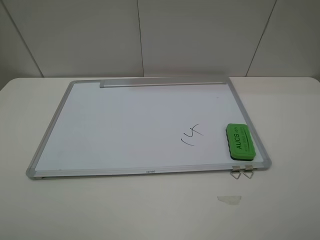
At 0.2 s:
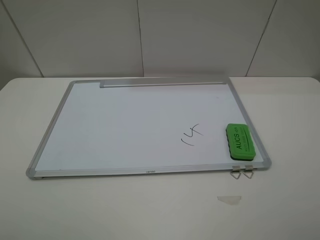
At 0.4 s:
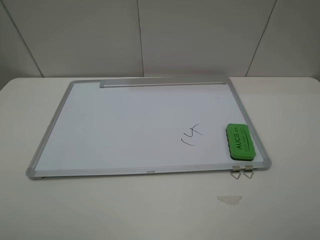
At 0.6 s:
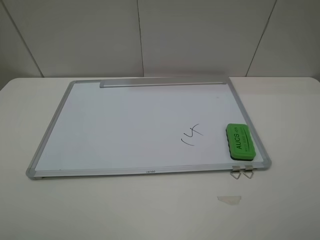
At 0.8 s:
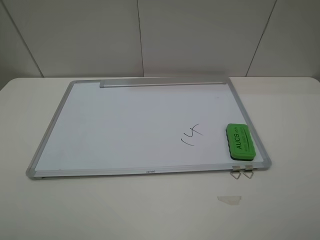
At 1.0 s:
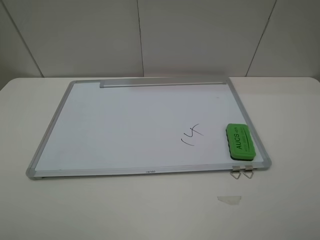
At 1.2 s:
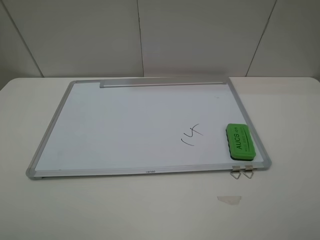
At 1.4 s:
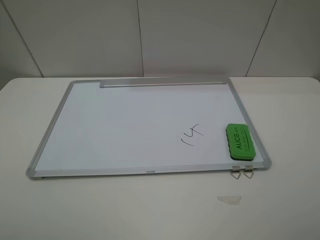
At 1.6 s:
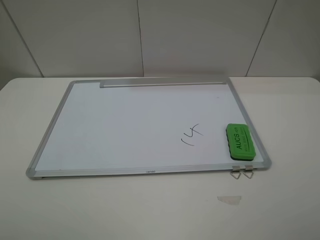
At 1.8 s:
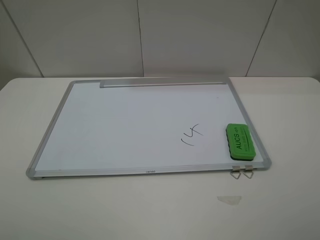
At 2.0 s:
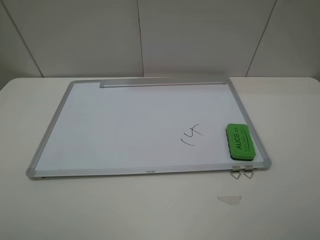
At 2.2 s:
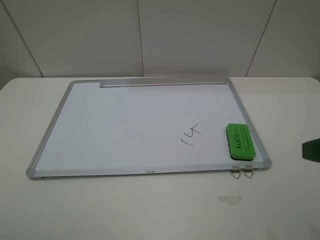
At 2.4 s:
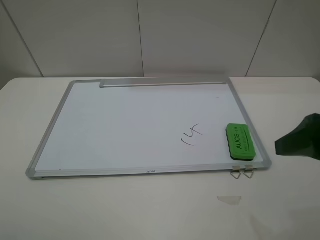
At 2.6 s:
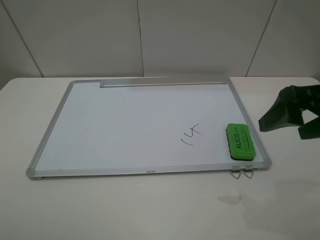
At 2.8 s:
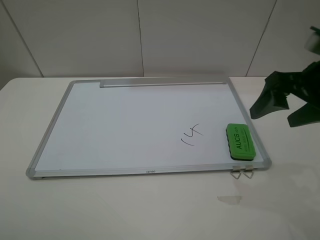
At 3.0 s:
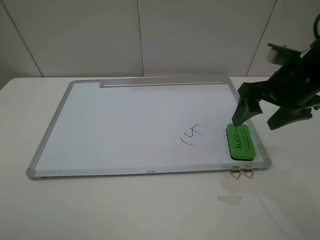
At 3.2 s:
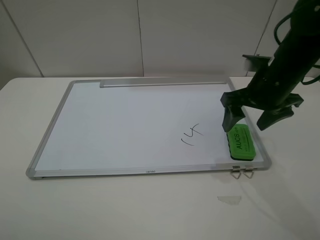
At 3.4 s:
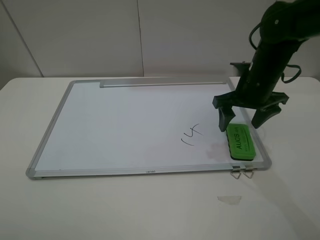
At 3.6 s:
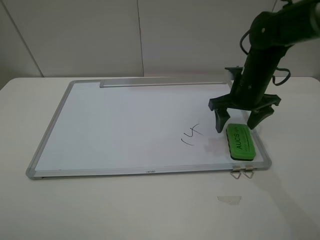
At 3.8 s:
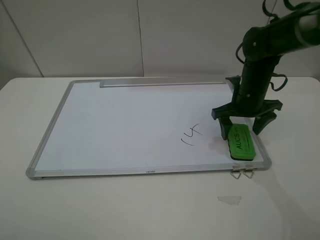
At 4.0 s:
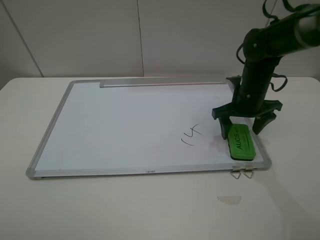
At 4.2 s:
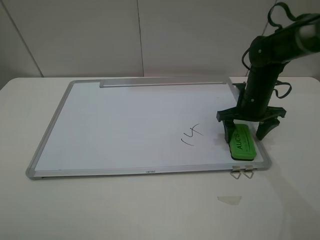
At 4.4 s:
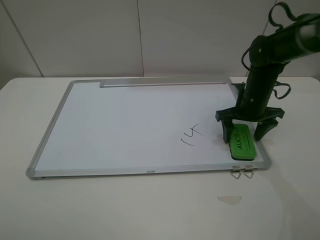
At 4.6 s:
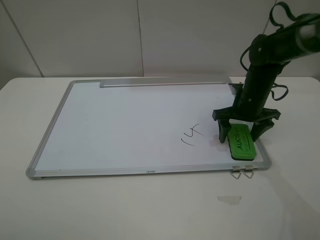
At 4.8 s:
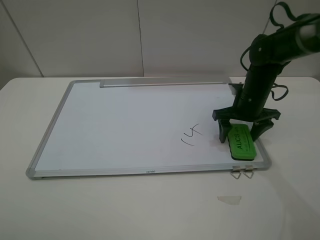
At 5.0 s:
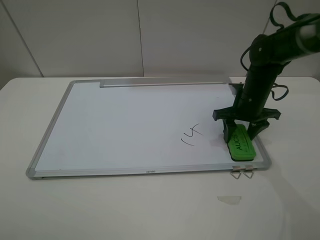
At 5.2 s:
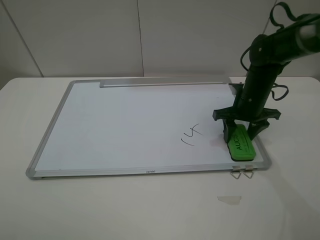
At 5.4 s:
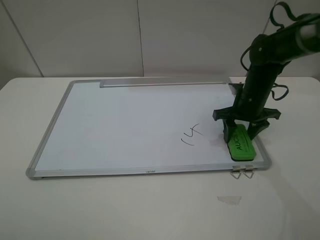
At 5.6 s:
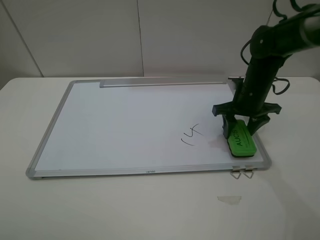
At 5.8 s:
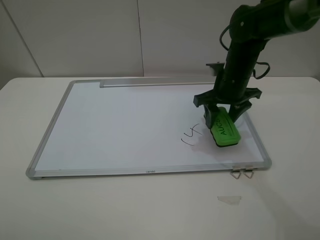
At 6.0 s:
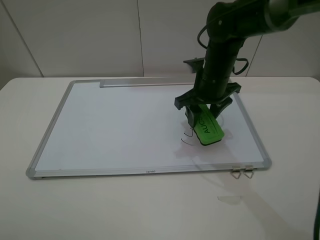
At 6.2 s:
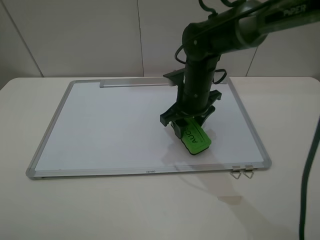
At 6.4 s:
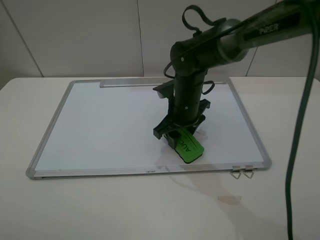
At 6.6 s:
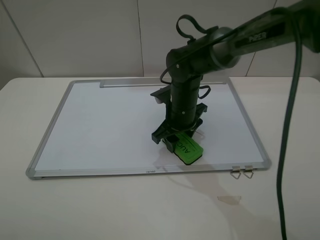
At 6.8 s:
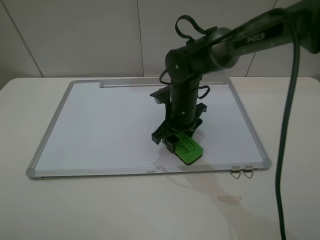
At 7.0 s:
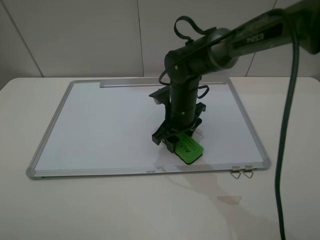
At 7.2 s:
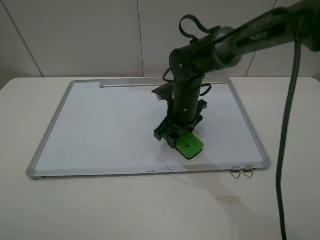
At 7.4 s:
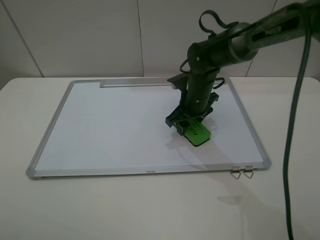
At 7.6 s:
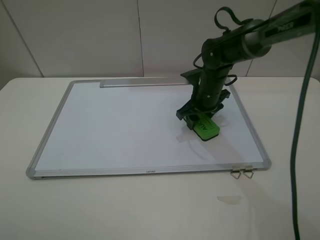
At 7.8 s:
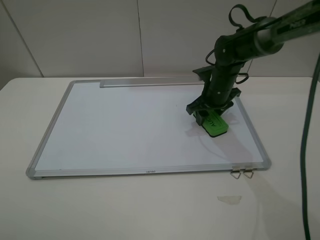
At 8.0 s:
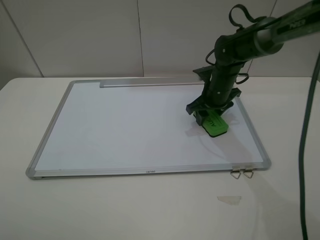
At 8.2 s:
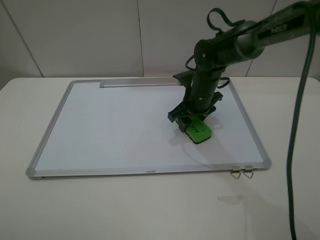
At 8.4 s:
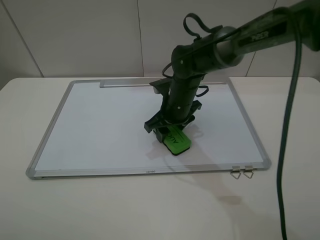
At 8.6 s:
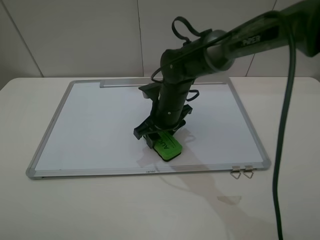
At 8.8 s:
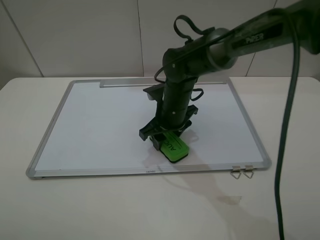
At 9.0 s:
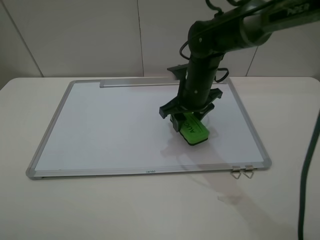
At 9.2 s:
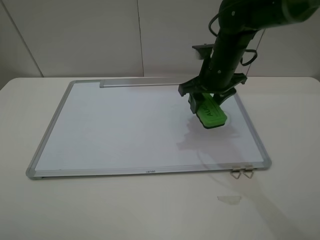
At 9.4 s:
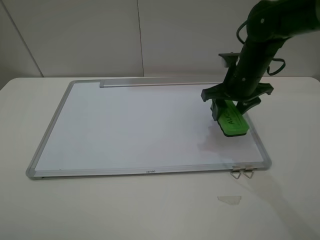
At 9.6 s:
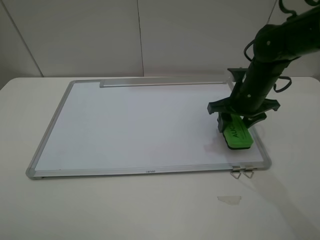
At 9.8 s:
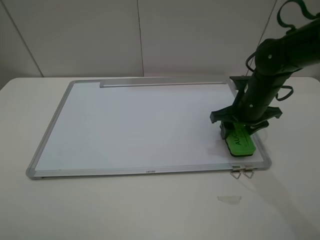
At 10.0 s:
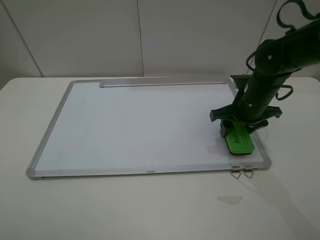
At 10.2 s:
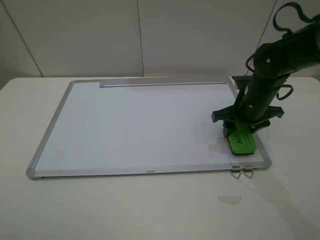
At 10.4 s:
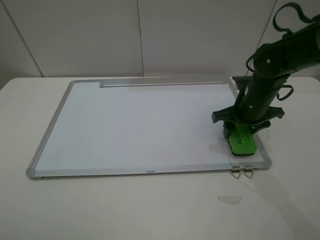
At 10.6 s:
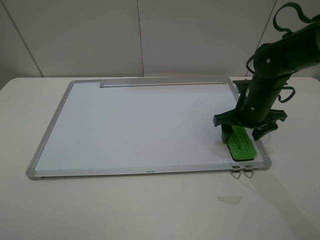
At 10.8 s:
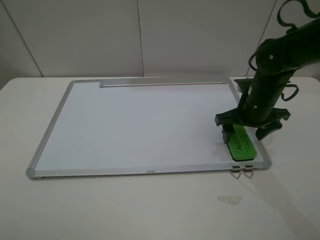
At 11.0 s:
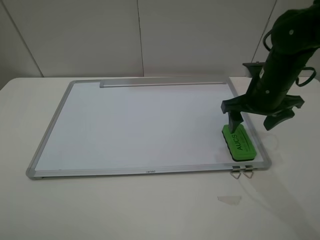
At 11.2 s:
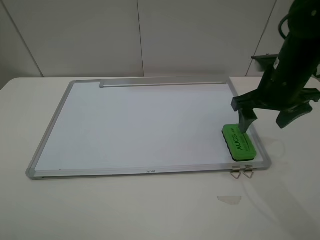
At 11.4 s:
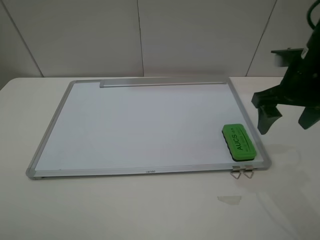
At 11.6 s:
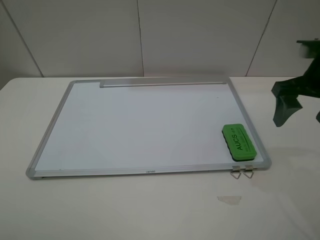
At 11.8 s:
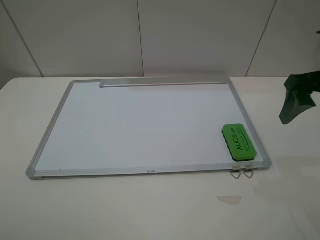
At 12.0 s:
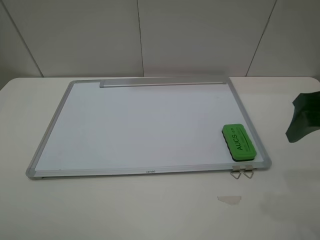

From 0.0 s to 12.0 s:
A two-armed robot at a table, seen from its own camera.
Step, from 0.0 s to 5.4 s: Grasp the eraser with the right gripper.
Step, from 5.6 s to 8.8 s: Grasp the eraser and wipe the blackboard with the right gripper.
Step, from 9.0 s to 11.0 s: Place the eraser with the right gripper.
From 0.0 s to 1.6 s: Neither gripper changes place.
From 1.6 s to 3.0 s: The right gripper goes roughly 25 cm forward.
From 3.0 s to 4.4 s: The right gripper shifts approximately 15 cm downward and forward.
From 4.4 s to 6.0 s: The right gripper goes some 10 cm to the left and upward, and closes its fingers.
From 6.0 s to 7.6 s: The right gripper moves downward, about 5 cm.
From 7.6 s to 9.0 s: The right gripper travels to the left and back again, some 10 cm each way.
From 9.0 s to 10.4 s: The right gripper heads to the right, covering about 10 cm.
From 10.4 s to 12.0 s: The right gripper shifts about 20 cm upward, backward and to the right, and opens.

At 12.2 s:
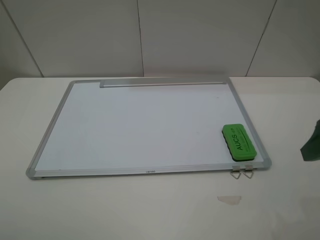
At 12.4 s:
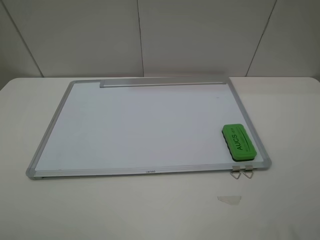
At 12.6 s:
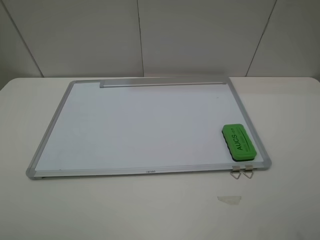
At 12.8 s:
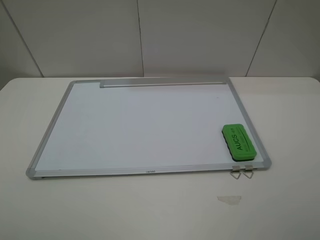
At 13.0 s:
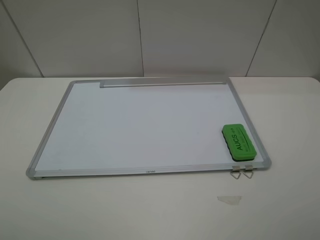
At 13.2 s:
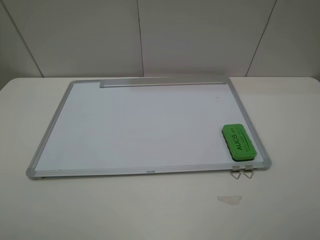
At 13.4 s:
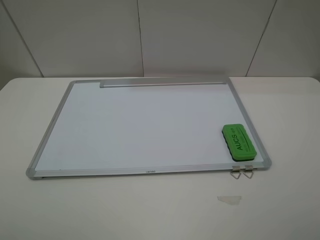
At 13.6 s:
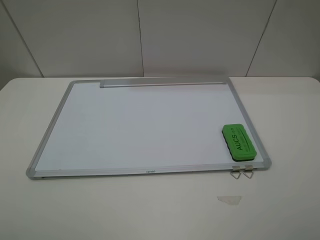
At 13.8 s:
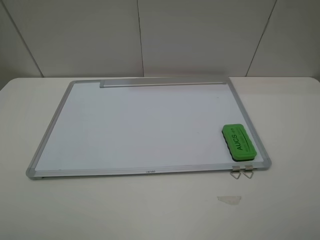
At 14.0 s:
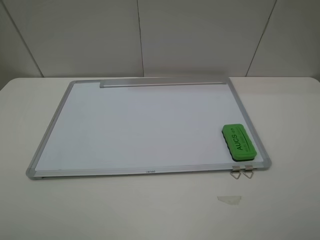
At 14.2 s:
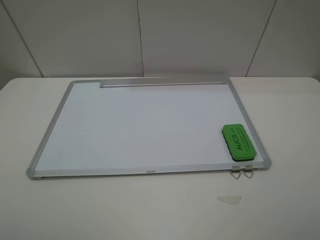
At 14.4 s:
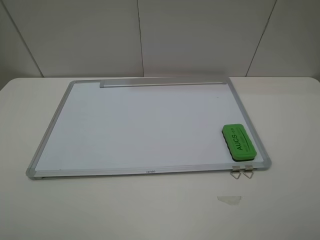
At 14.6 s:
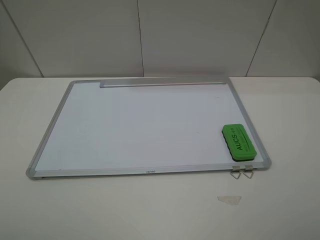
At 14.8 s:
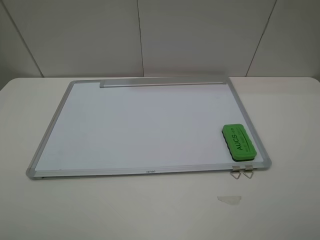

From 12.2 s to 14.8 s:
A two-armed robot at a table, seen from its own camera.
From 13.4 s to 14.8 s: Both grippers stay put.
